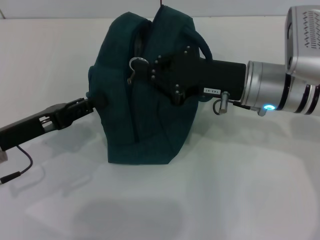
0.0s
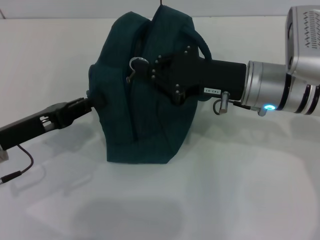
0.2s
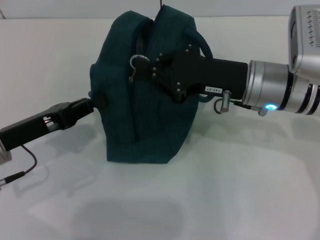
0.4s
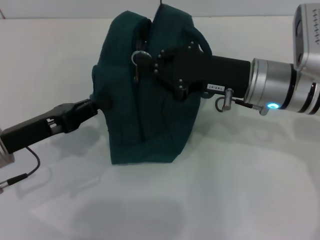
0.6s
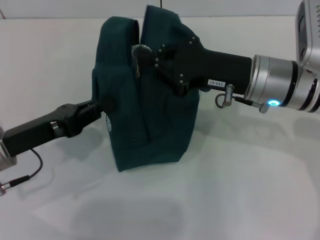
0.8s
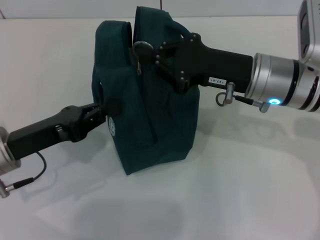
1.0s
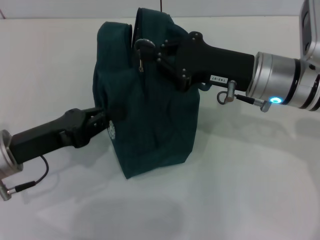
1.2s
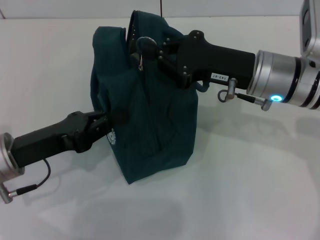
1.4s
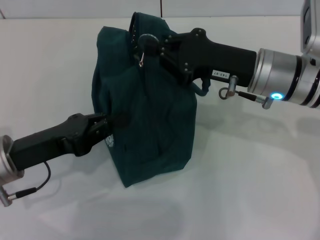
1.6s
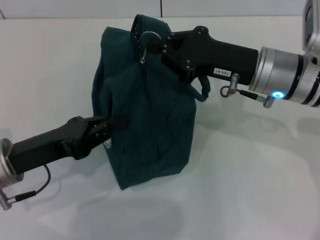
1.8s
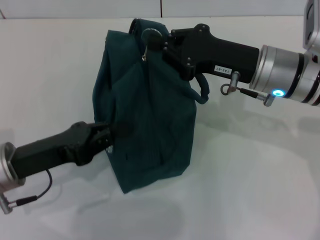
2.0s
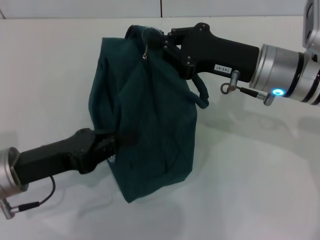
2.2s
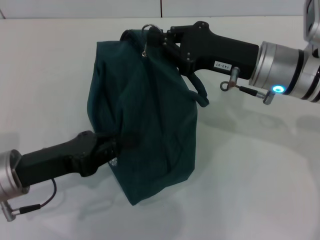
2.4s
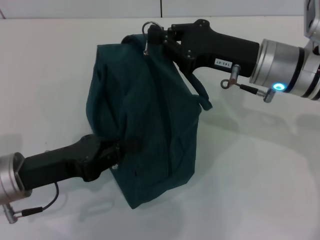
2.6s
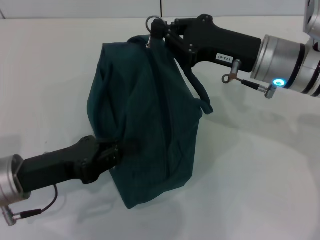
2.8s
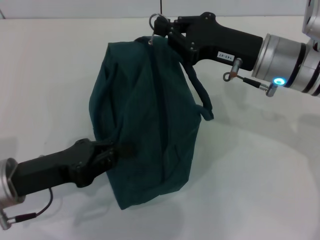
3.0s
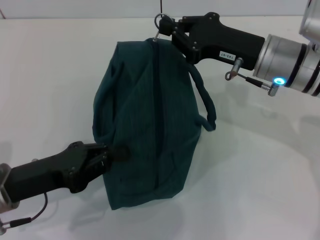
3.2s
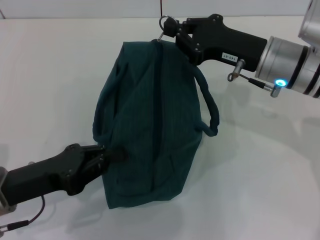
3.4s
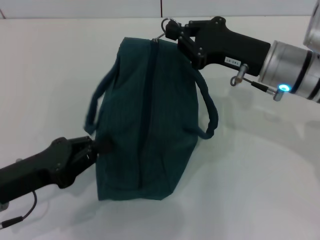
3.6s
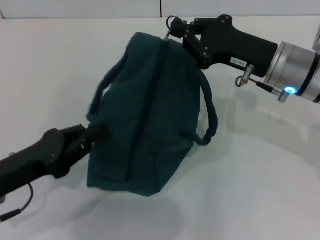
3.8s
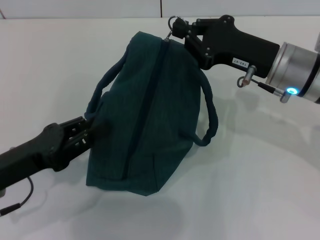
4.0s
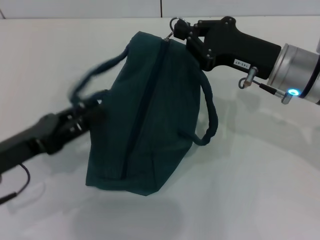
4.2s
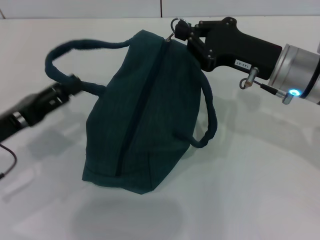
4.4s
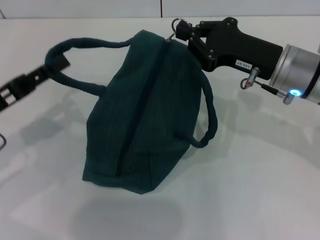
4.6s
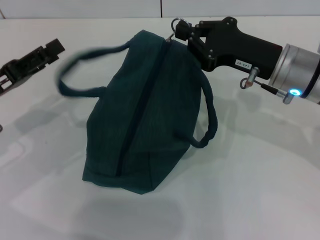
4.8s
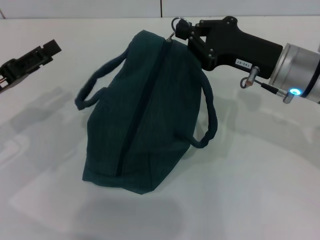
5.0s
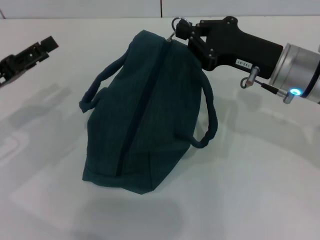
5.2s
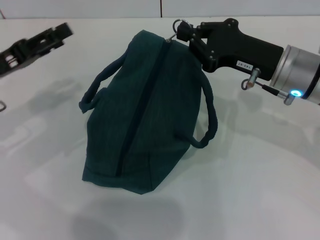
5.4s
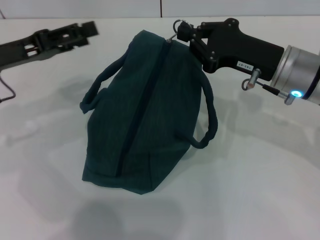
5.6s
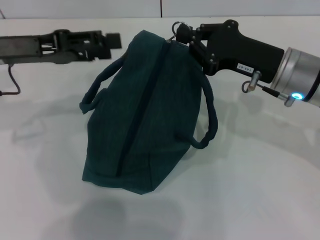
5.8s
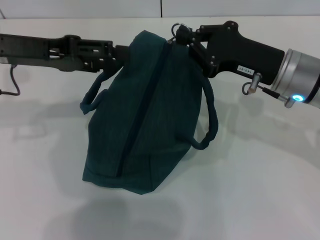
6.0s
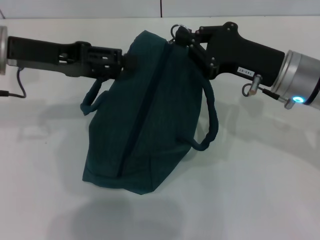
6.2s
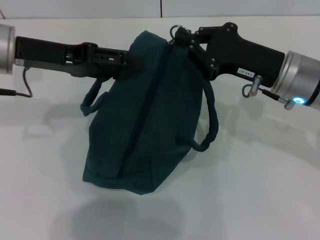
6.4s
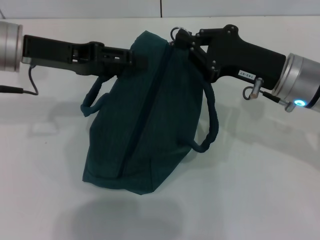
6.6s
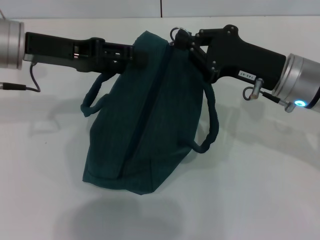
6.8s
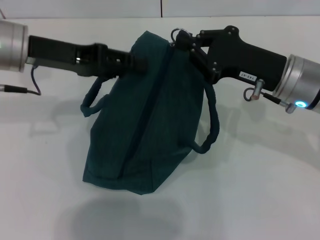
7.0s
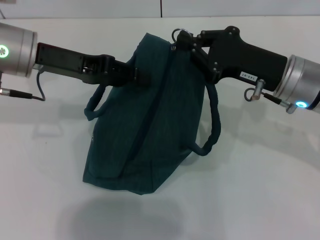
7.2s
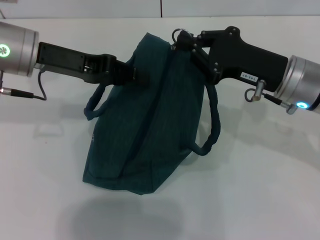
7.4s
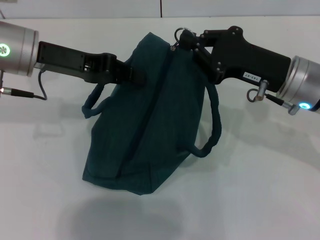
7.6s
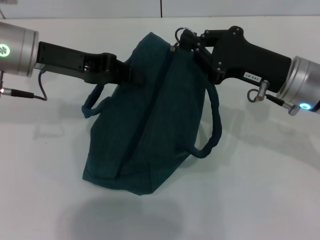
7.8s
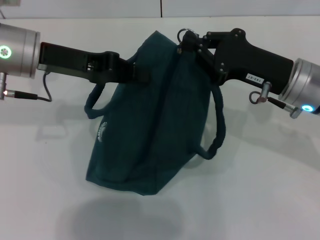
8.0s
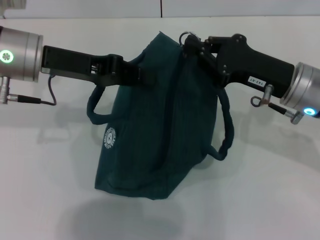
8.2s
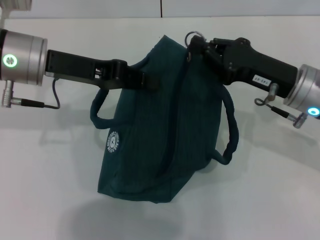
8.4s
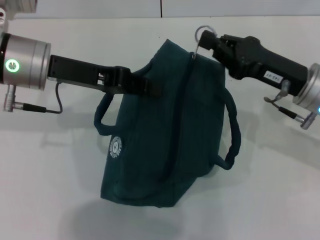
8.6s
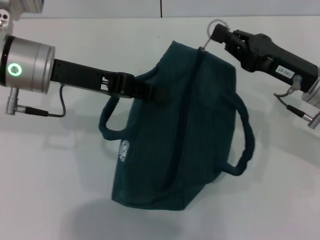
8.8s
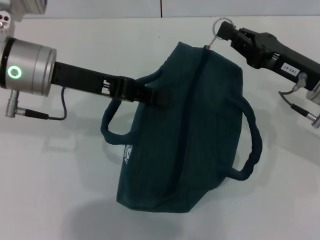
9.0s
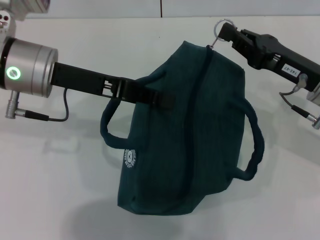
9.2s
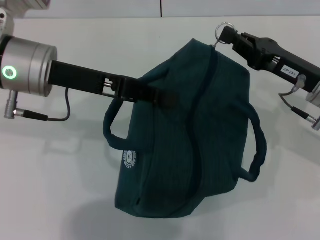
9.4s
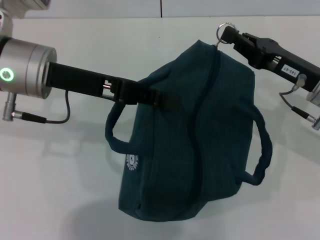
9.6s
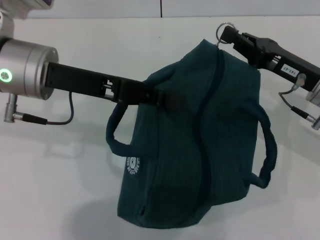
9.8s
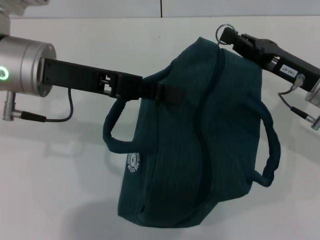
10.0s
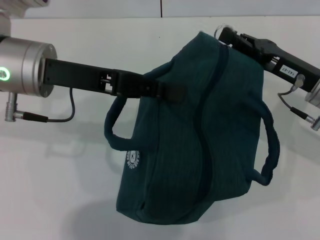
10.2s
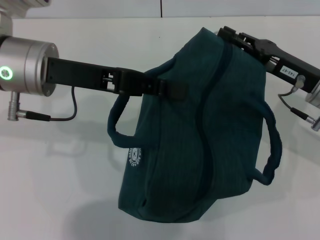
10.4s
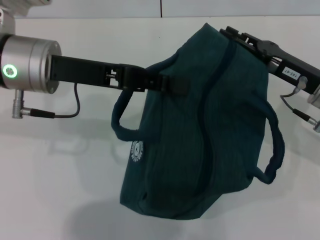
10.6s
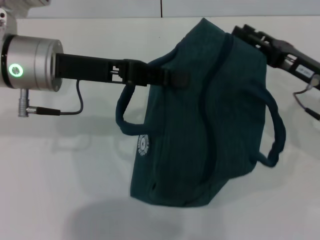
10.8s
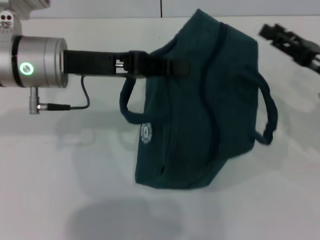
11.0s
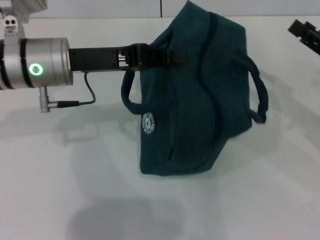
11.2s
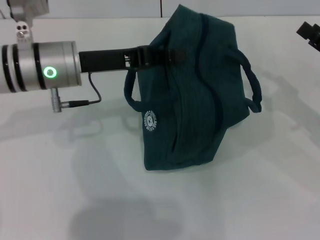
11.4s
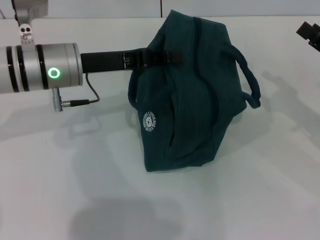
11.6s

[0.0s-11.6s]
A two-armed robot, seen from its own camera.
Step, 0.0s to 10.6s: Zip up the lunch bag with your right hand.
0.0s to 1.4s: The left gripper closes.
2.8s to 4.4s: The left gripper ends up some 5 cm from where it was, and opens.
4.4s to 5.8s: The left gripper moves forward and upward, roughly 15 cm, and opens.
5.8s to 7.2s: The left gripper changes place by roughly 5 cm, and closes.
7.2s to 8.8s: The left gripper closes its fingers.
8.8s to 10.2s: There are only small adjustments of the grippers.
10.2s to 11.6s: The left gripper heads downward, covering some 5 cm, while the right gripper travels to the right by approximately 10 cm, and opens.

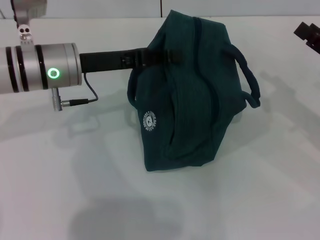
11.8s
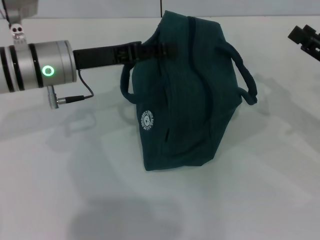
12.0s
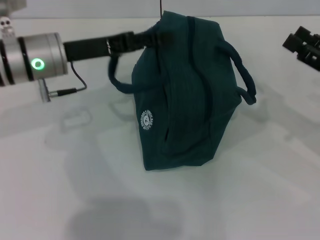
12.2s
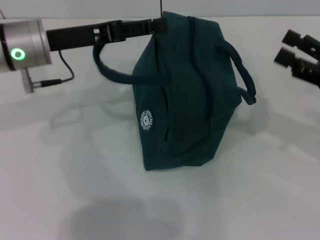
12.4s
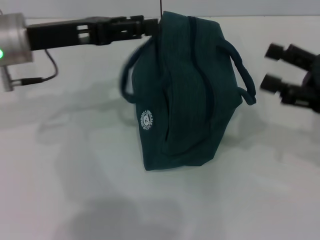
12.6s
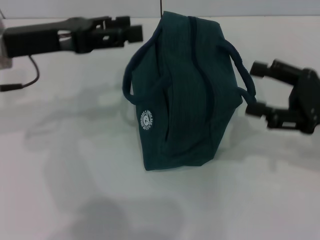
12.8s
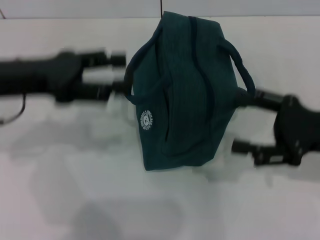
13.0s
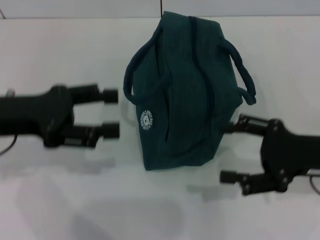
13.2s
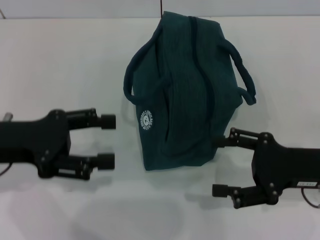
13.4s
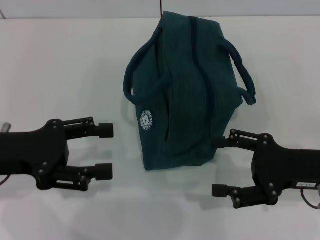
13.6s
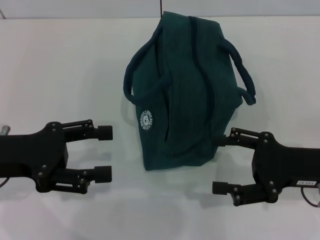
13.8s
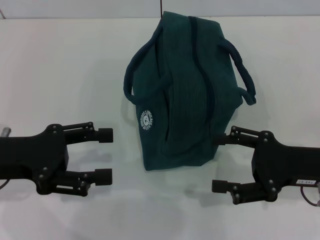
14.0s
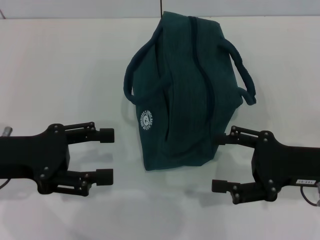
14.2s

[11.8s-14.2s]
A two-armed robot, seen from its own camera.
11.8s to 13.0s: The left gripper is displaced to the left and backward by approximately 10 cm, and opens its fingers. The right gripper is displaced to the left by approximately 5 cm.
13.0s to 14.2s: The left gripper moves backward, approximately 5 cm.

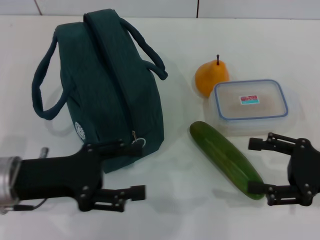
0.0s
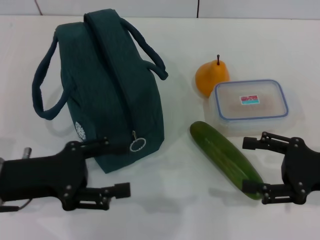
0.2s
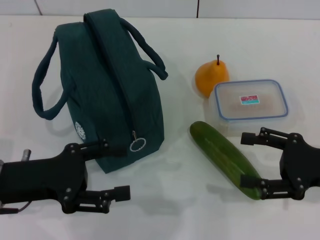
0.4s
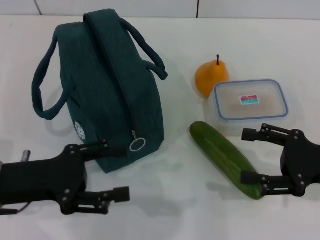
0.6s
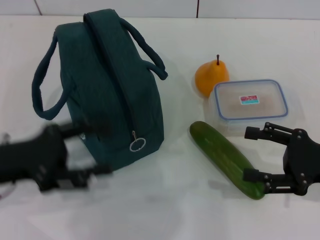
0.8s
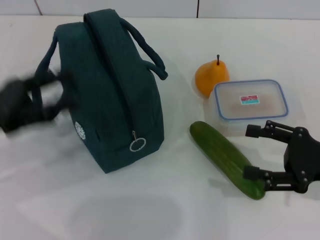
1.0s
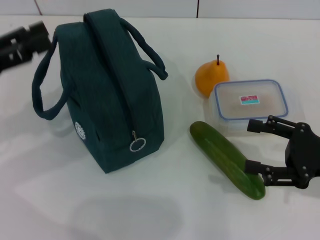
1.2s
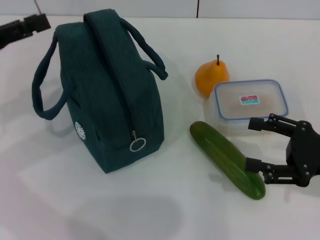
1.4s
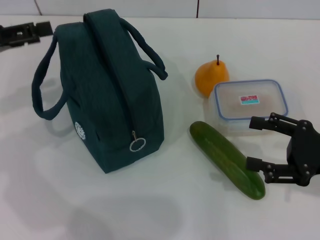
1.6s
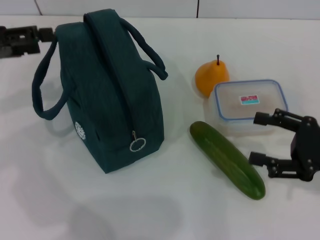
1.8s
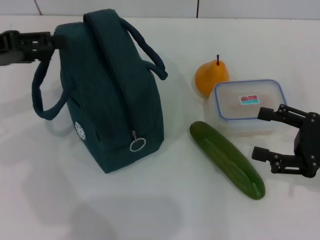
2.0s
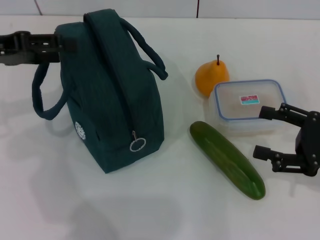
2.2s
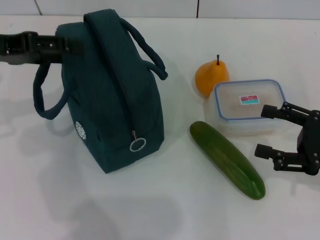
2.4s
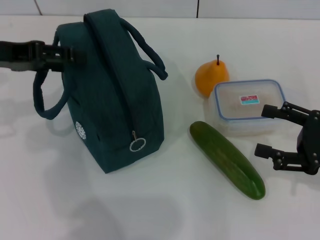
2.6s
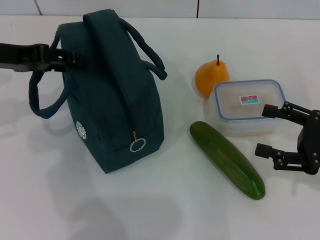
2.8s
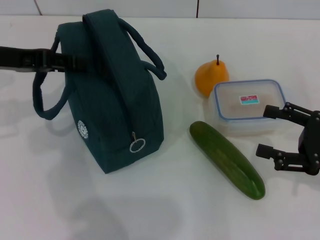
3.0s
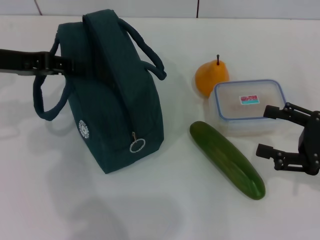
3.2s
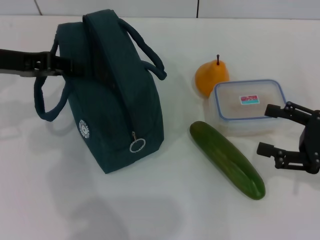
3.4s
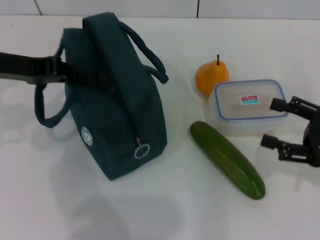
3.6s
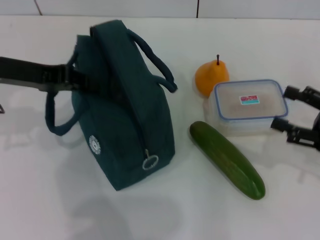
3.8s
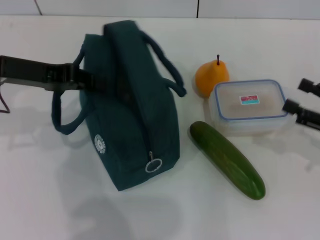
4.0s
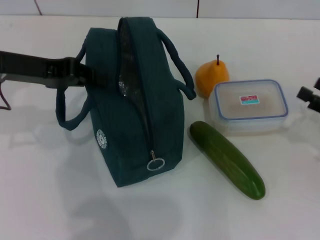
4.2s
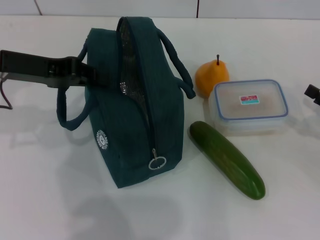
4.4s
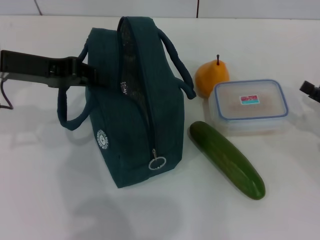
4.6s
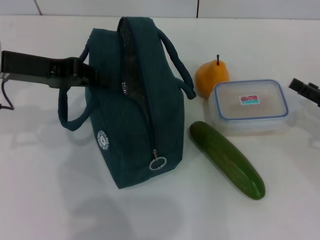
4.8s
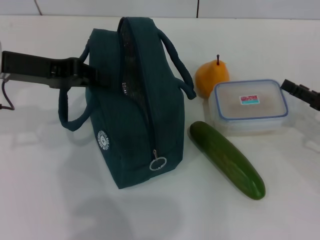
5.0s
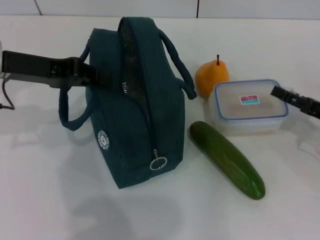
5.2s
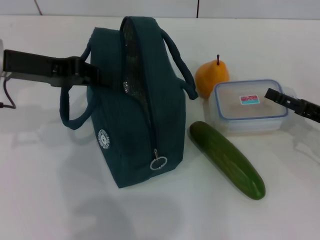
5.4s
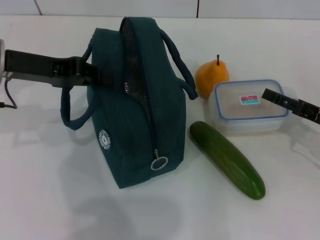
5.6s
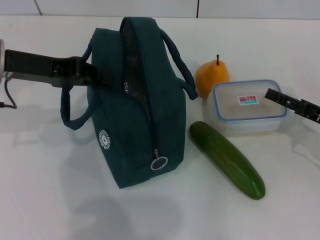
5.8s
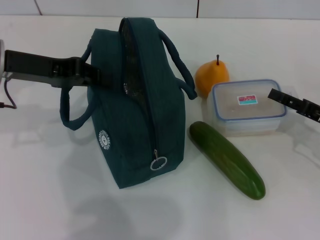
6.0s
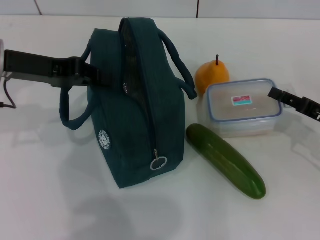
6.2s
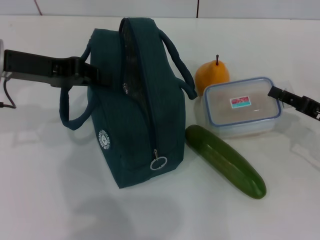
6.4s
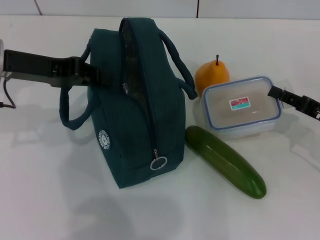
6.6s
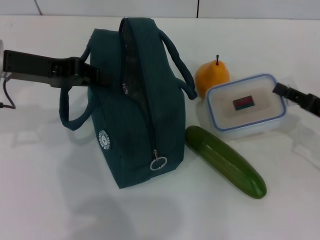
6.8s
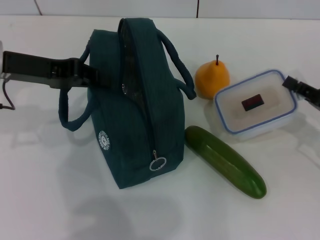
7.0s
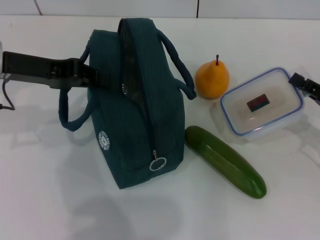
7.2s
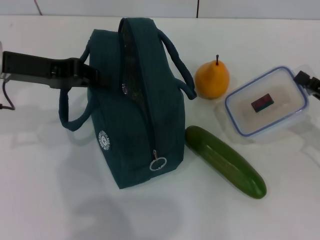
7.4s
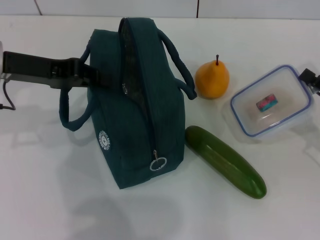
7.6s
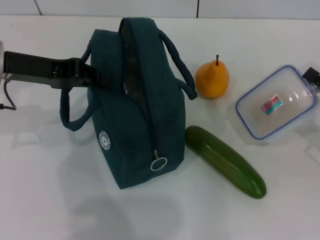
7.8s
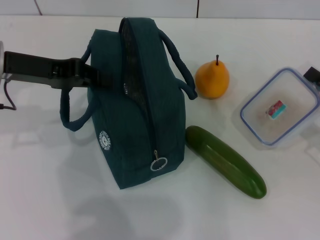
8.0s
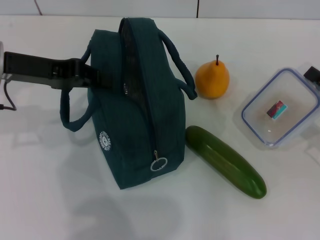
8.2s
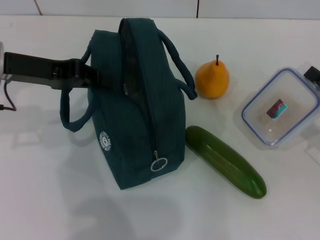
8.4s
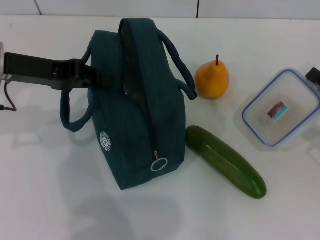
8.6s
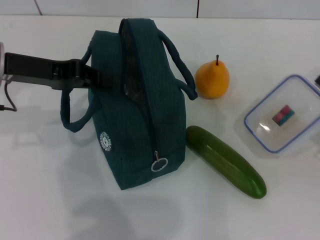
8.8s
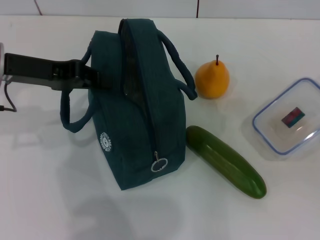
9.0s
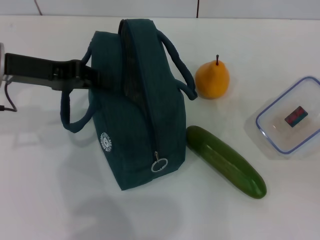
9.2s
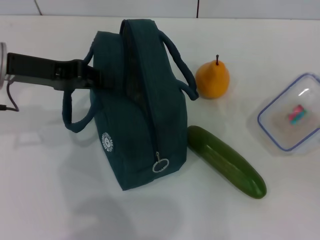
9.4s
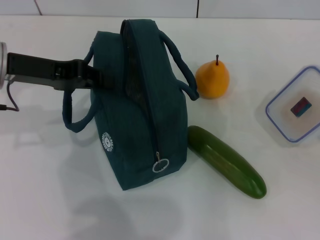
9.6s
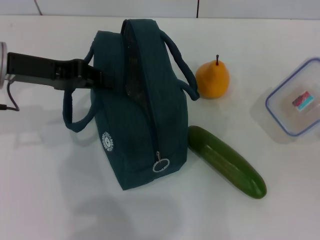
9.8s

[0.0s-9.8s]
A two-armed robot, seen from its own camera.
Step, 0.0s to 4.4s: Hold the lunch bag with your left hand.
Step, 4.6s to 6.4s: Pick up the lunch box with your right hand.
0.0s to 1.4s: The left gripper is displaced to the left, upward and forward by roughly 15 cm.
1.4s to 2.8s: The left gripper changes place by approximately 5 cm.
2.8s to 4.2s: The left gripper closes its fingers; the right gripper moves some 5 cm.
4.2s to 5.6s: The right gripper moves roughly 5 cm.
5.6s to 7.0s: The right gripper closes up.
7.0s to 9.8s: There are only small adjustments of the grippers.
